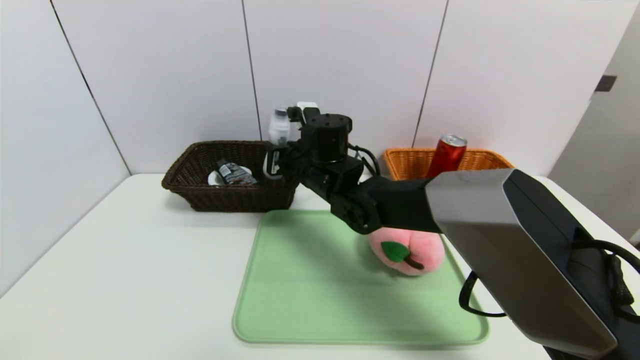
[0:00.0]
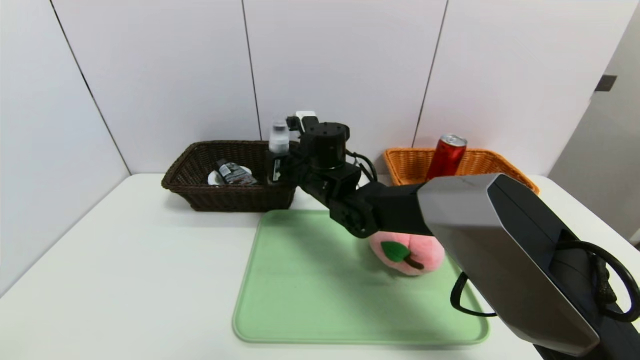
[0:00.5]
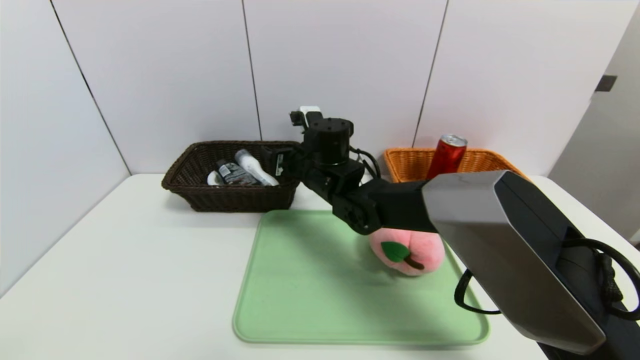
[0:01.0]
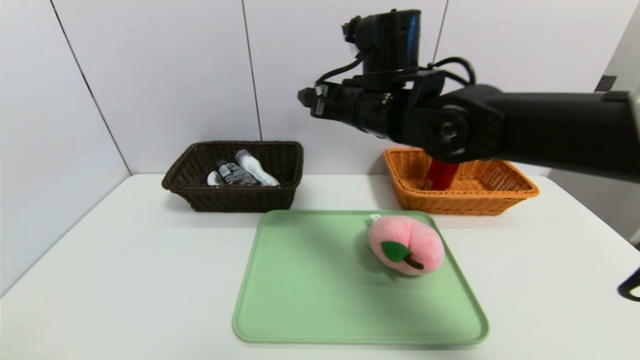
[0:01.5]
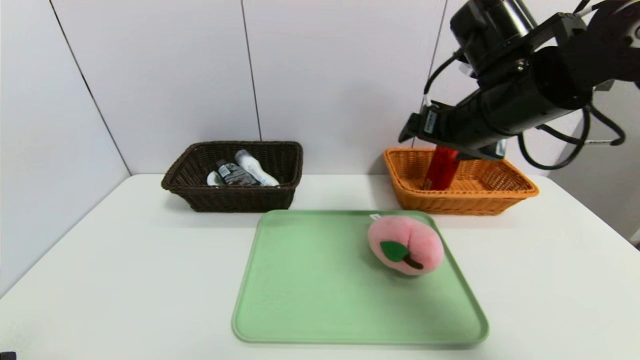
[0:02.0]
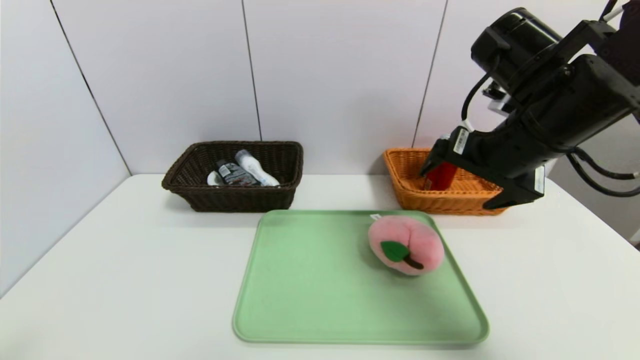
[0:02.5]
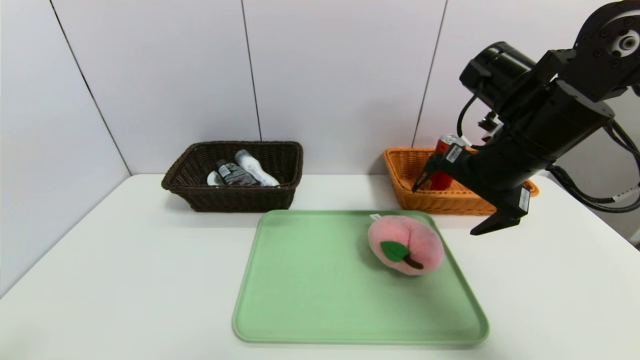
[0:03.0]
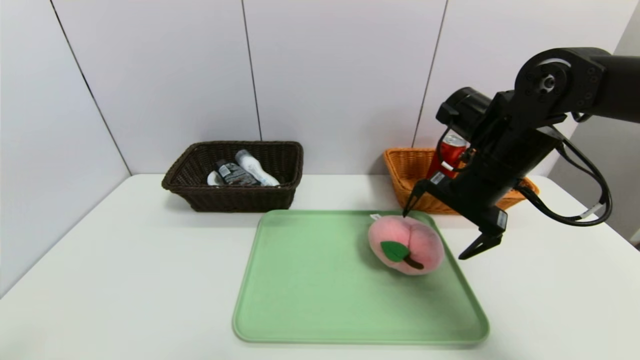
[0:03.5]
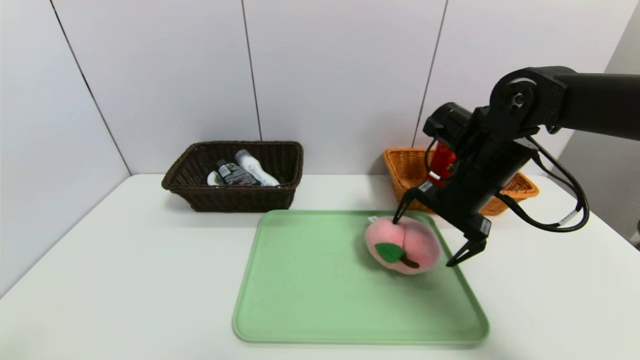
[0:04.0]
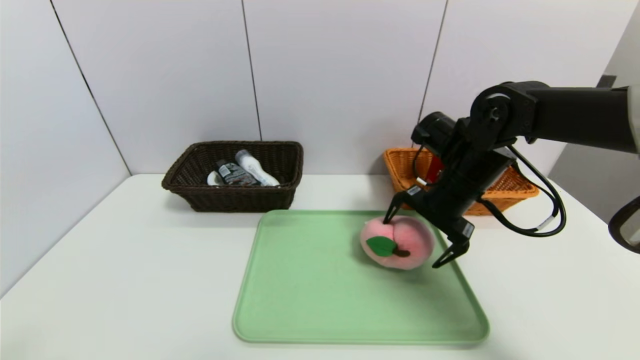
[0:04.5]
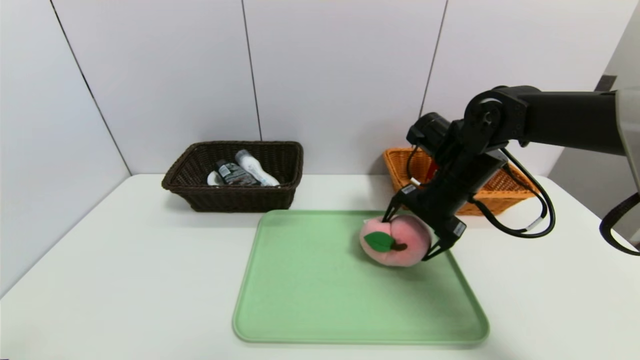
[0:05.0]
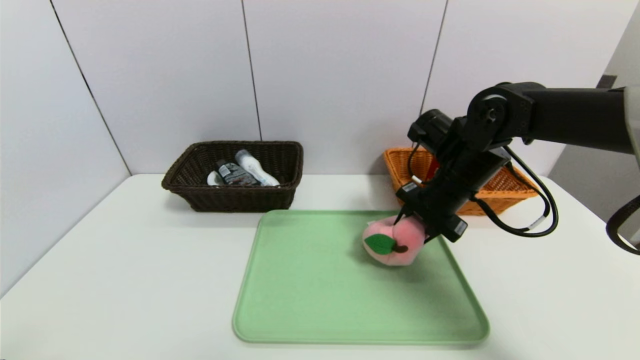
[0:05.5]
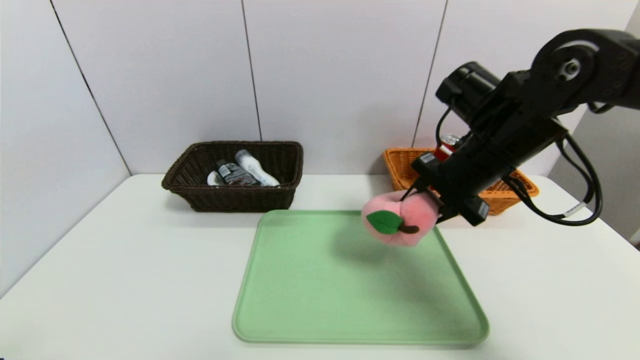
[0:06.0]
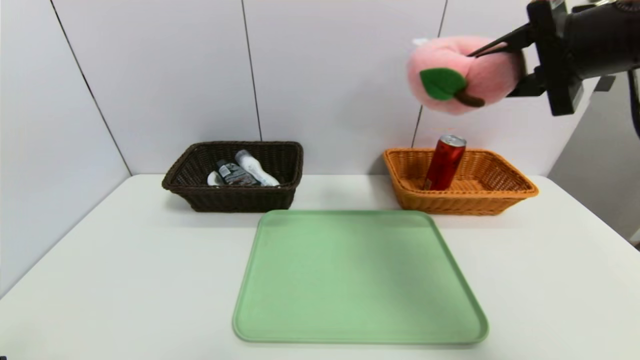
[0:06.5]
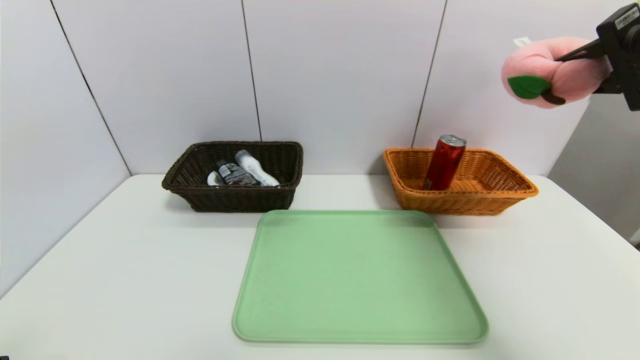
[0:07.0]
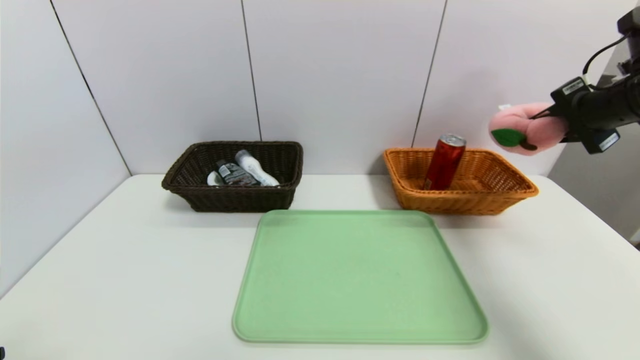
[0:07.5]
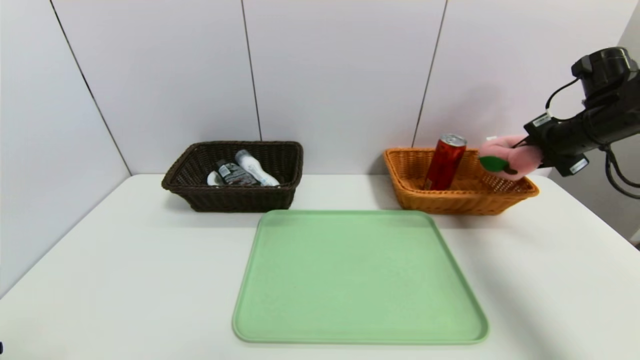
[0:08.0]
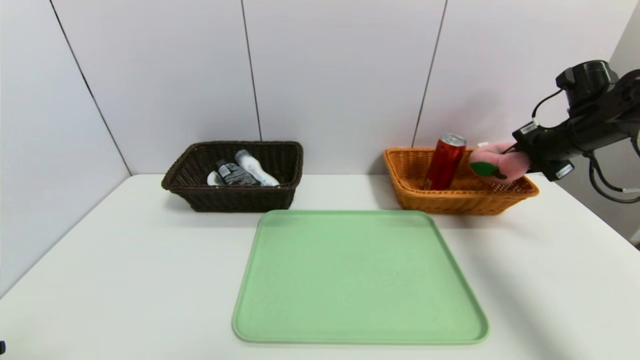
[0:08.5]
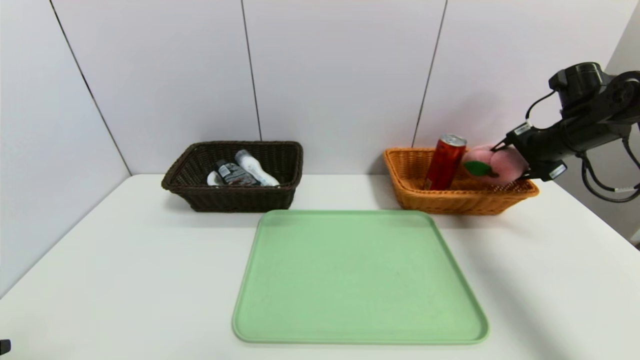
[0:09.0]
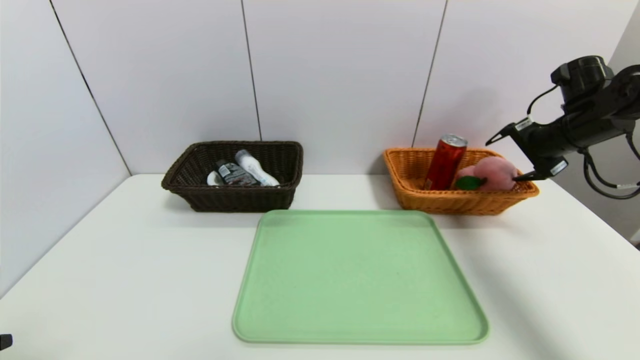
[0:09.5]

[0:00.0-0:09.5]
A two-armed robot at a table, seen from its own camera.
Task of the whole recording: place the food in the right basket with the right gripper, and place the non food items in the left basket with the left gripper.
0:00.0 to 0:02.0: The right gripper is displaced to the right, upward and backward by approximately 25 cm, and opens.
0:02.0 to 0:04.0: The right gripper heads downward, covering roughly 10 cm.
0:04.0 to 0:05.5: The right gripper closes.
0:05.5 to 0:07.5: The right gripper is displaced to the right and upward by about 20 cm.
0:07.5 to 0:09.5: The right gripper moves downward and forward, some 10 cm, and opens its fingers.

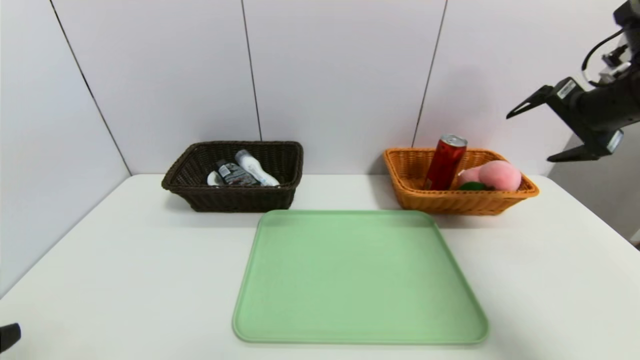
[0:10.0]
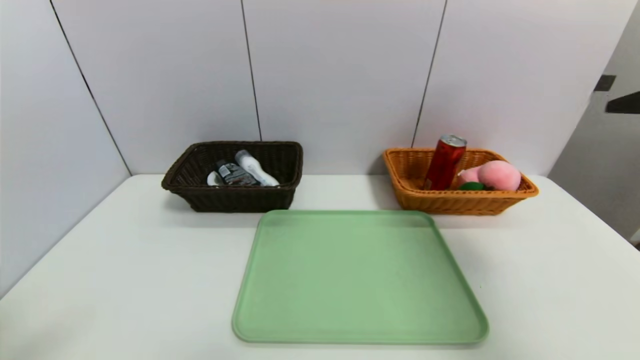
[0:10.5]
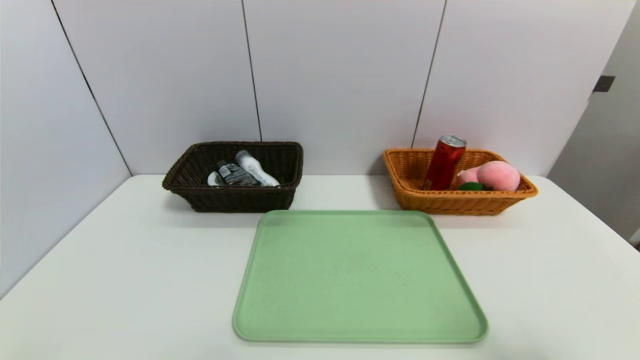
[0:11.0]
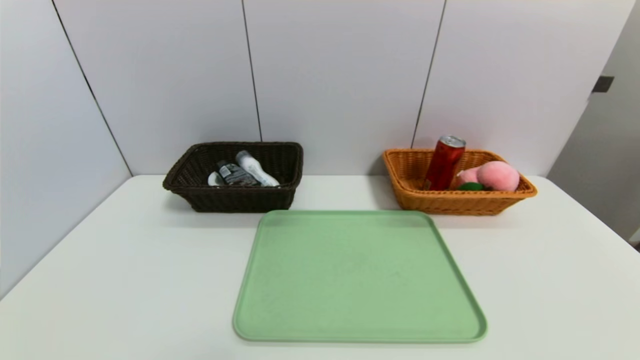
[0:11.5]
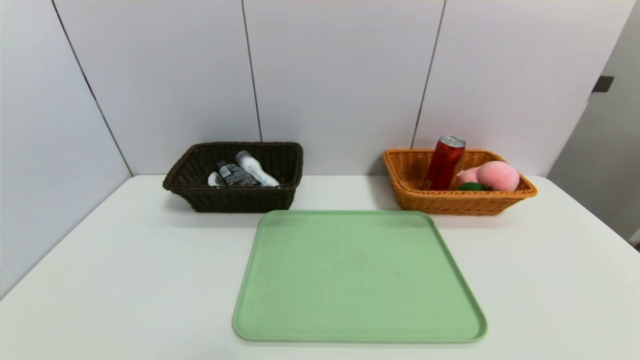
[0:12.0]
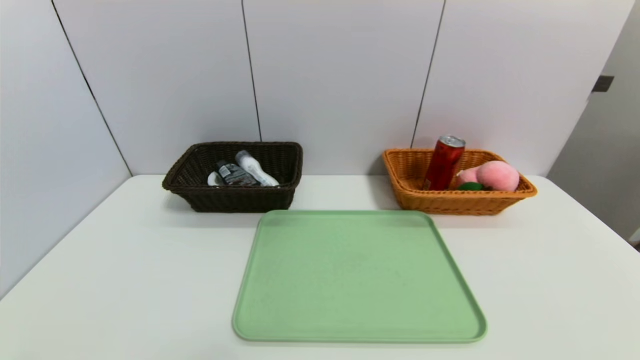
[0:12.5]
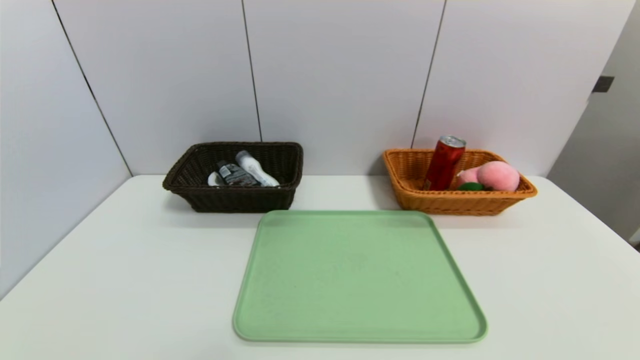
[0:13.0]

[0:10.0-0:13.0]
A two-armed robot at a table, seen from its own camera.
Task of the whole recording: place the food in the right basket with the right gripper, and place the non food items in the left basket with the left gripper.
0:10.0 to 0:11.5: The right gripper heads backward and downward, covering roughly 40 cm. The left gripper is displaced backward and downward by about 10 cm.
